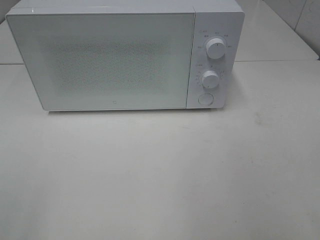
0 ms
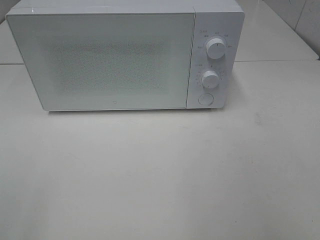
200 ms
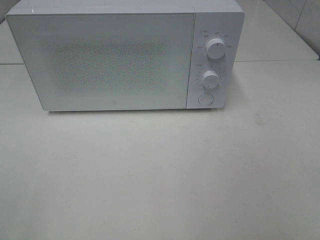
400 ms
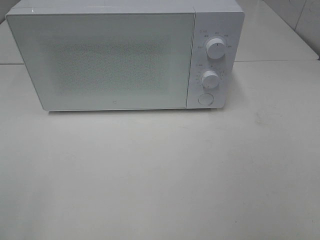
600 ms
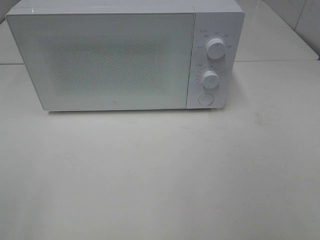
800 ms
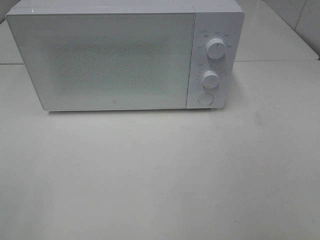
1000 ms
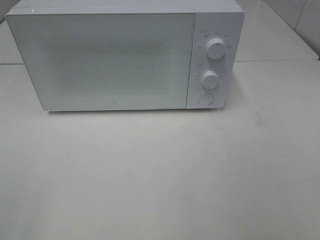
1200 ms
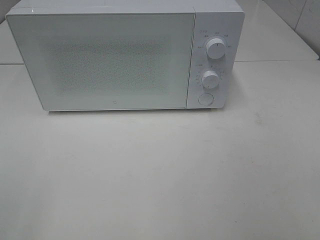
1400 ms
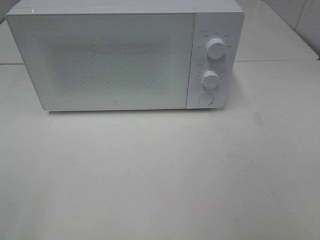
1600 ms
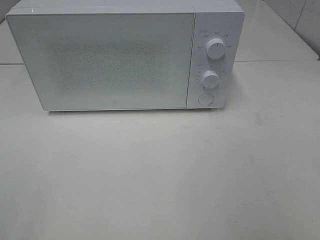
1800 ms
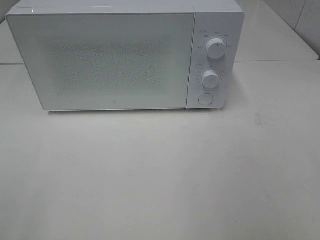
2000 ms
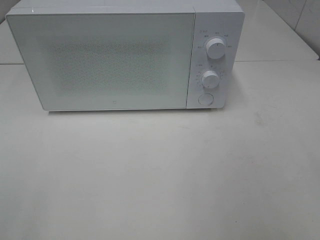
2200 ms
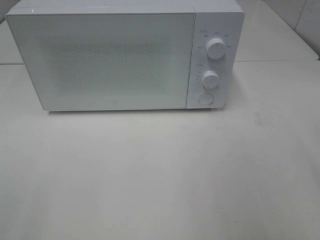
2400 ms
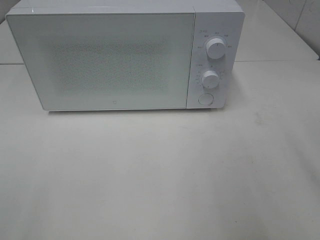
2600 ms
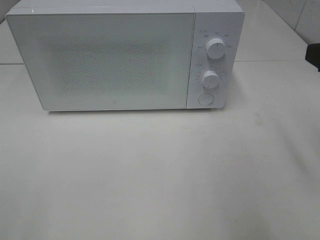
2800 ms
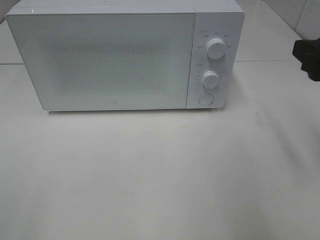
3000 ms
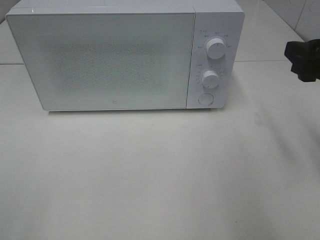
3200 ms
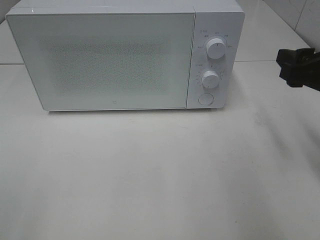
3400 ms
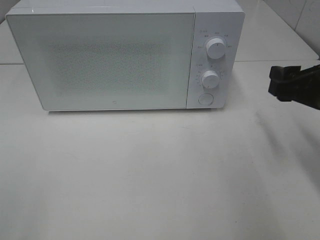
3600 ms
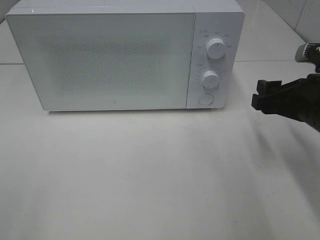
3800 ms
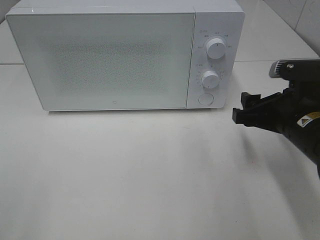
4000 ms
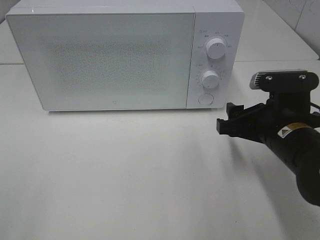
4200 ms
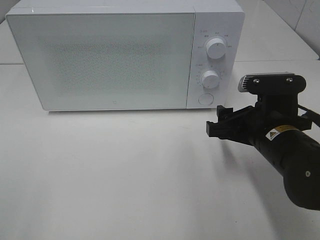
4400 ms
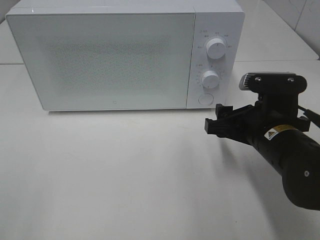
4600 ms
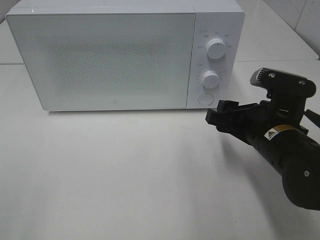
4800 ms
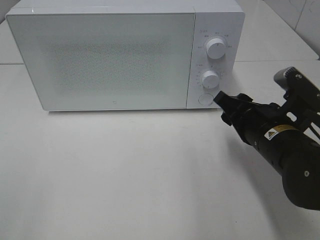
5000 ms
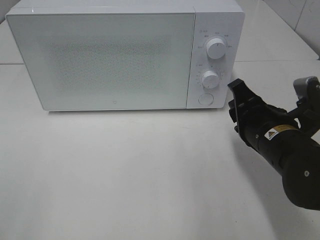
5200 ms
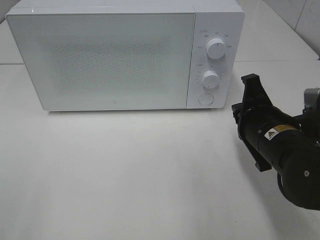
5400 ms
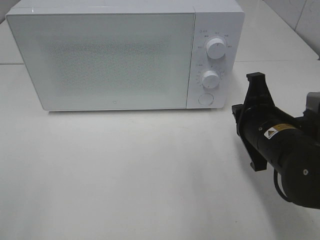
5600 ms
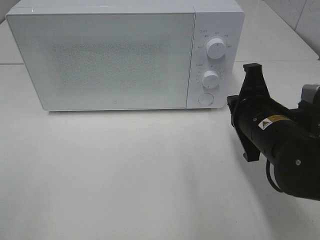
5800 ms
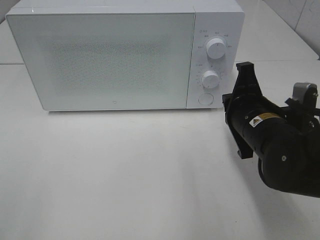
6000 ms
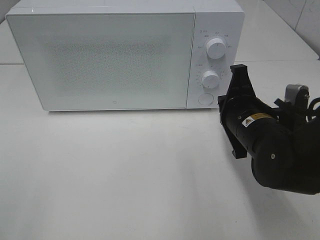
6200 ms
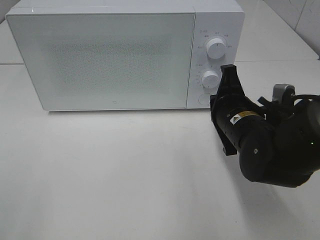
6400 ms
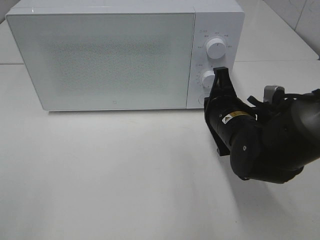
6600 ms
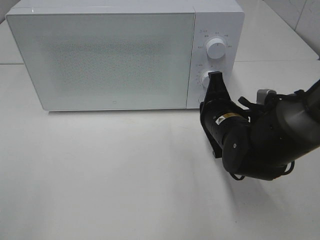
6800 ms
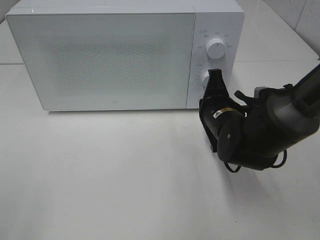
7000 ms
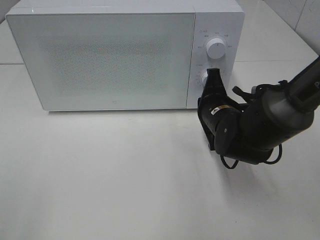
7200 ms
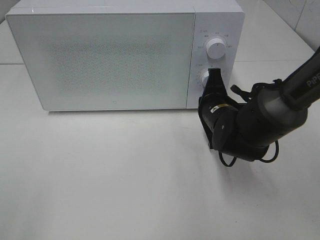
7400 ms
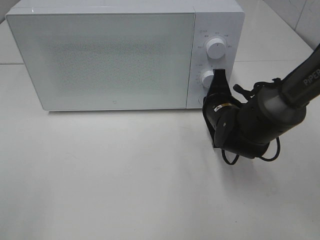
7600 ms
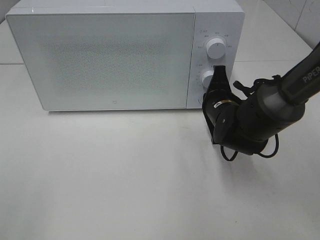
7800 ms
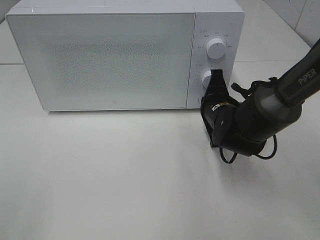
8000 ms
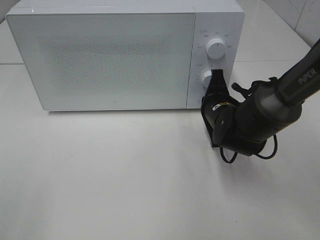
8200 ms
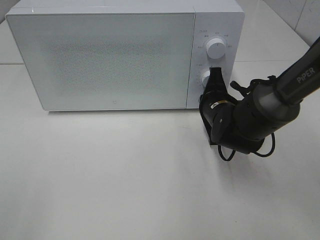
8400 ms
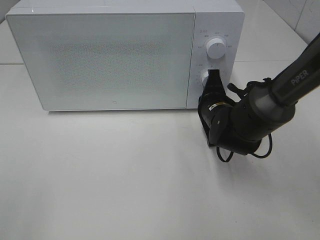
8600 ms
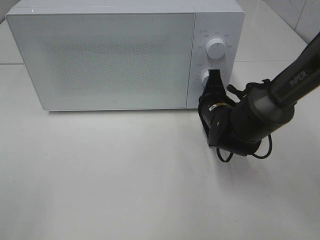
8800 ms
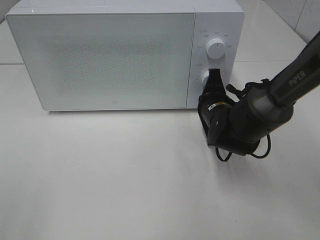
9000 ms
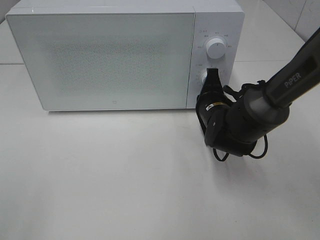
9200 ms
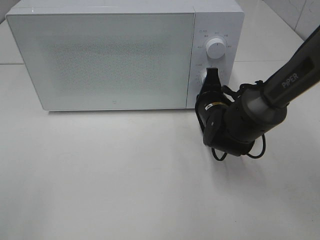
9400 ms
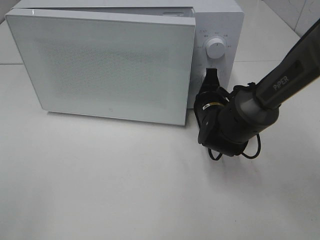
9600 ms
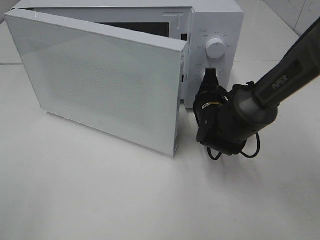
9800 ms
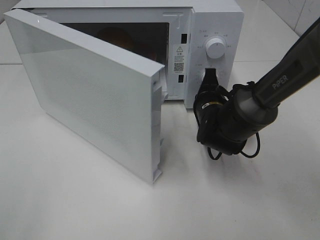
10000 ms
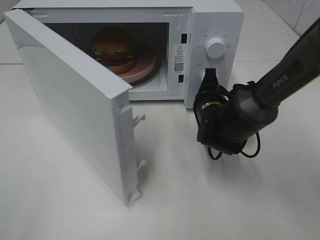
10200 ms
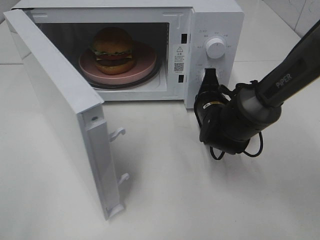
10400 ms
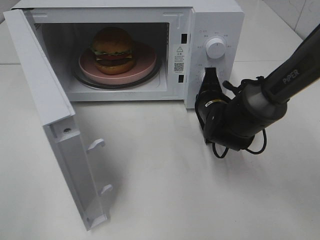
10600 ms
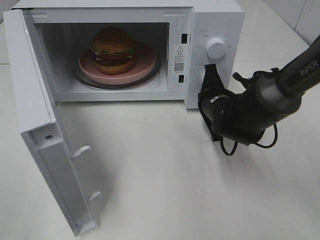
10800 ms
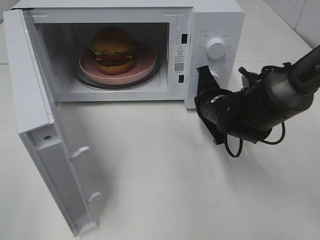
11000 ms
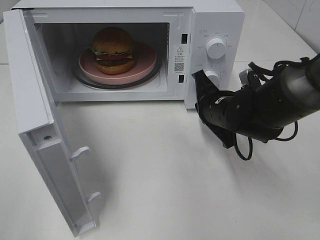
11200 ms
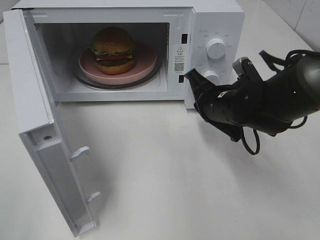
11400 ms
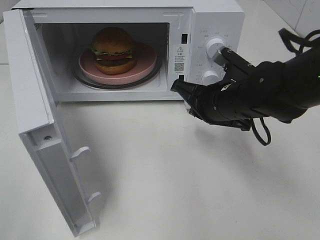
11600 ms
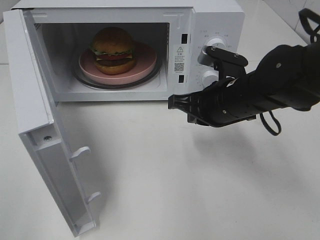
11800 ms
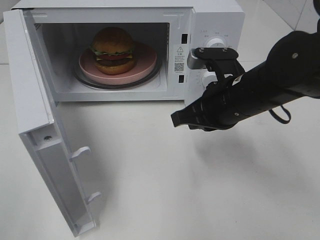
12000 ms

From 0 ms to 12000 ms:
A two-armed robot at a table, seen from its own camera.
Task of the whole recording: Heat the burger.
Step, from 0 ms to 11000 ms: Right hand: press the switch.
From 1600 ms to 3000 ms: The right gripper goes some 20 cm forward.
From 3000 ms to 4400 ms: The right gripper moves downward and to the left, some 15 cm.
From 4400 ms to 6000 ms: The right gripper closes.
From 6000 ms to 7600 ms: The right gripper shifts some 10 cm forward and downward.
From 7600 ms to 9000 ms: The grippers stay close to where they were, moving slightly.
From 10400 ms to 12000 ms: The right gripper goes about 15 cm upward and backward.

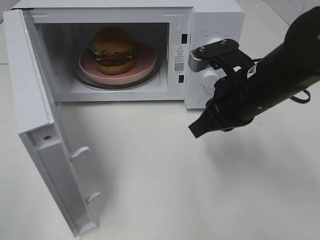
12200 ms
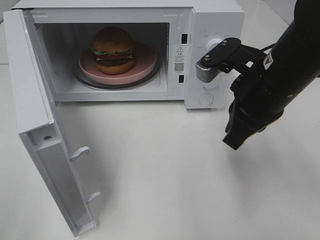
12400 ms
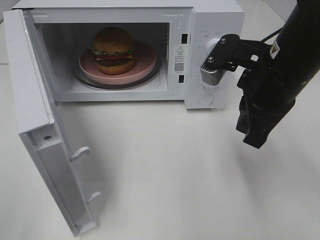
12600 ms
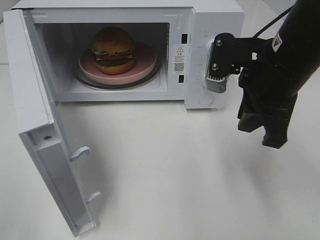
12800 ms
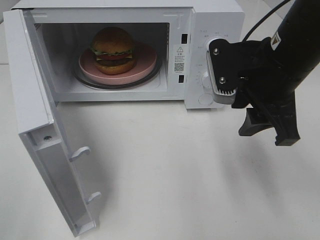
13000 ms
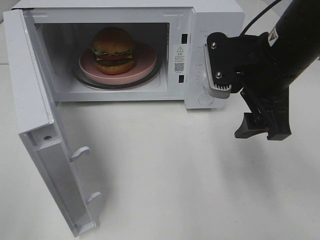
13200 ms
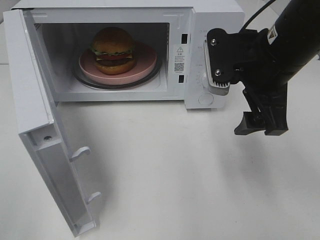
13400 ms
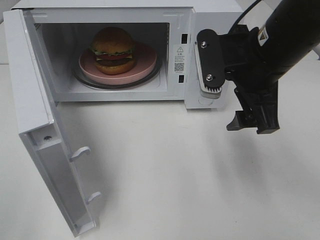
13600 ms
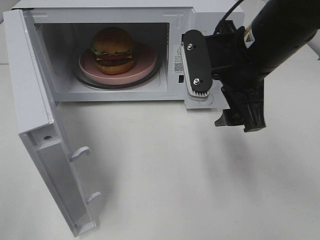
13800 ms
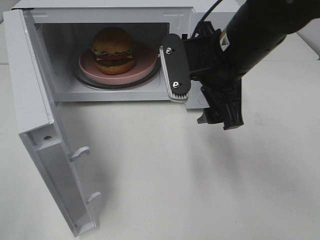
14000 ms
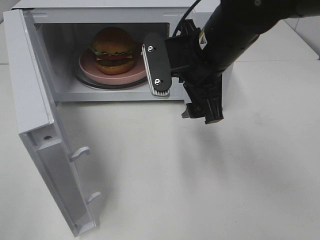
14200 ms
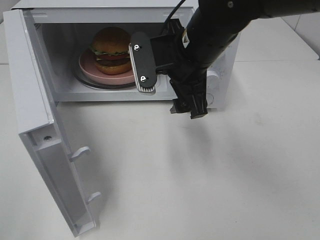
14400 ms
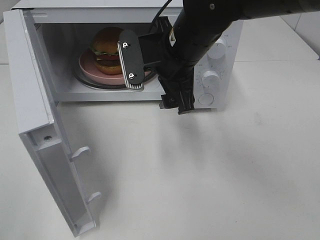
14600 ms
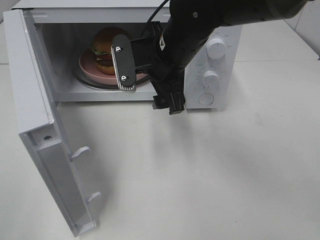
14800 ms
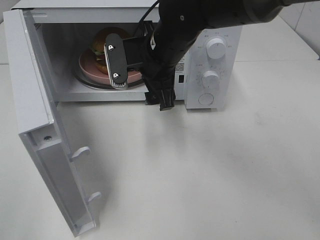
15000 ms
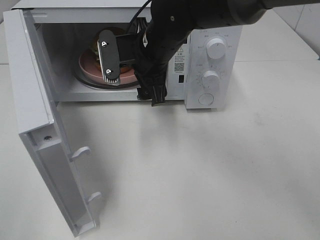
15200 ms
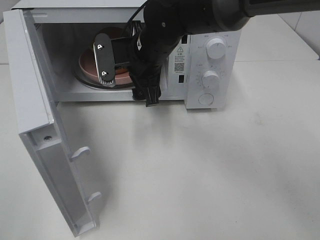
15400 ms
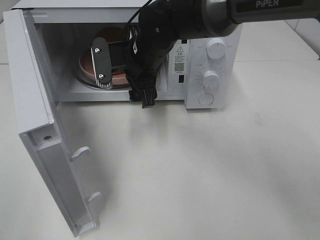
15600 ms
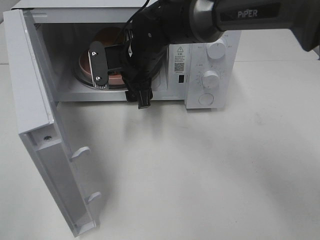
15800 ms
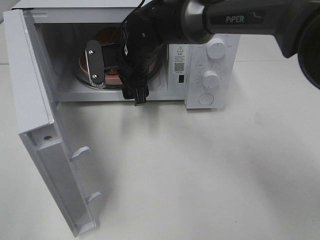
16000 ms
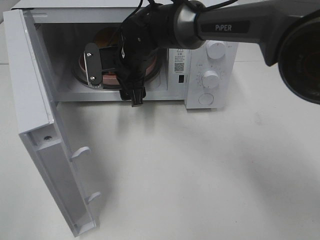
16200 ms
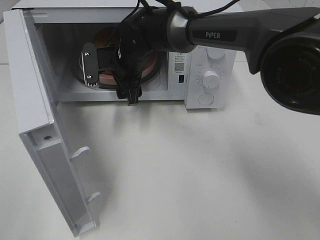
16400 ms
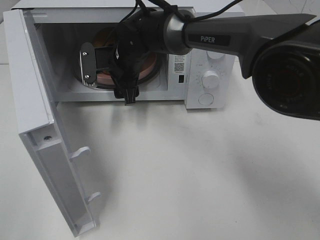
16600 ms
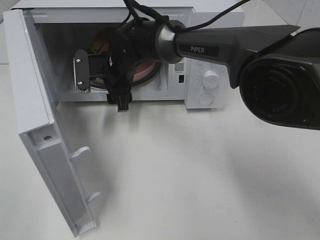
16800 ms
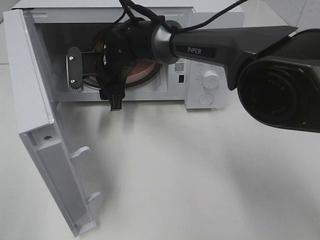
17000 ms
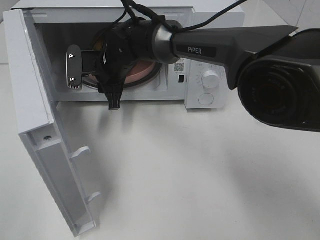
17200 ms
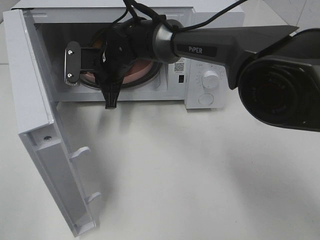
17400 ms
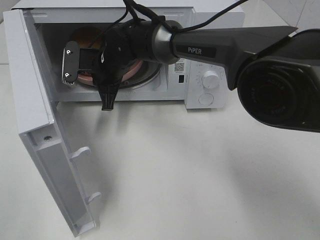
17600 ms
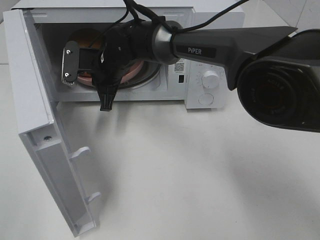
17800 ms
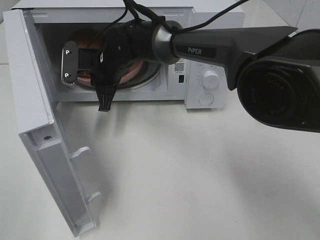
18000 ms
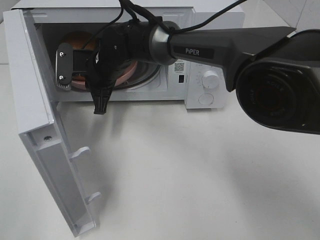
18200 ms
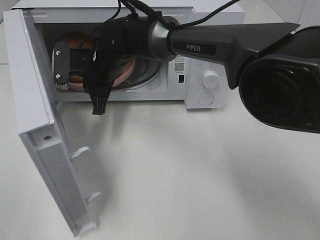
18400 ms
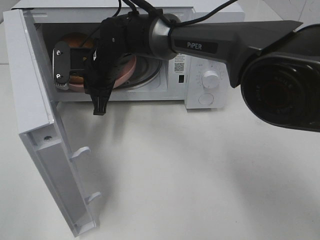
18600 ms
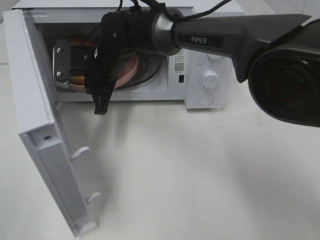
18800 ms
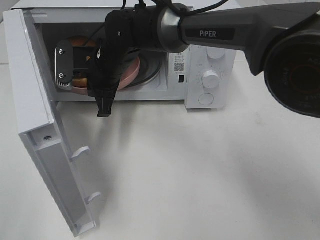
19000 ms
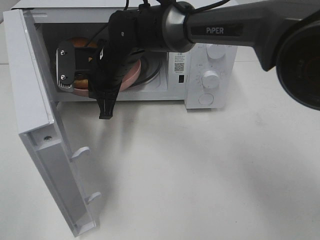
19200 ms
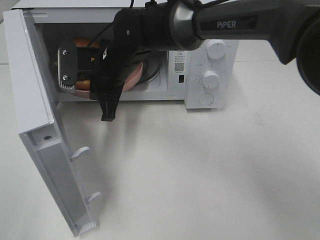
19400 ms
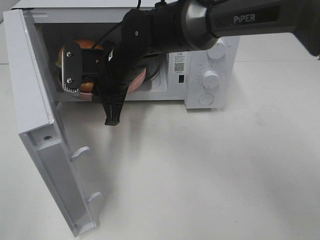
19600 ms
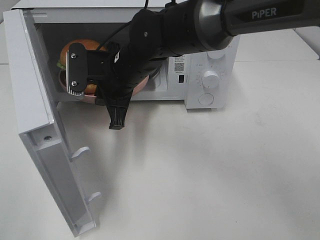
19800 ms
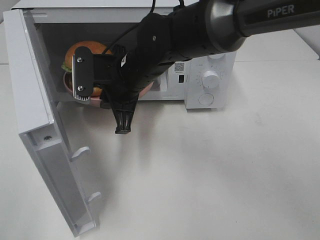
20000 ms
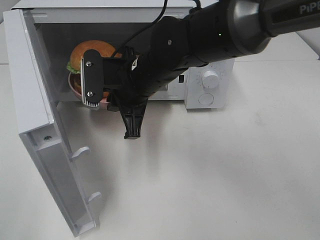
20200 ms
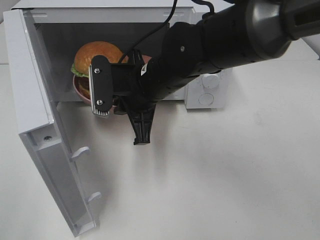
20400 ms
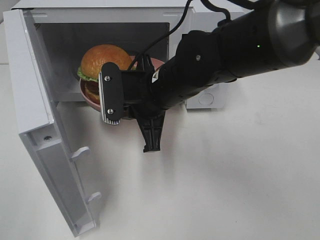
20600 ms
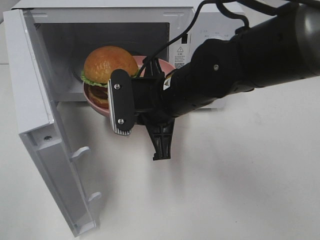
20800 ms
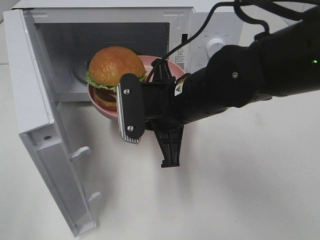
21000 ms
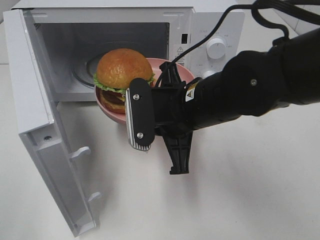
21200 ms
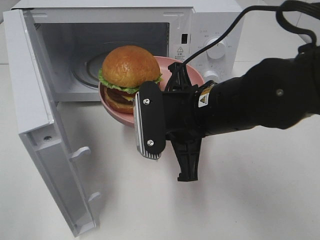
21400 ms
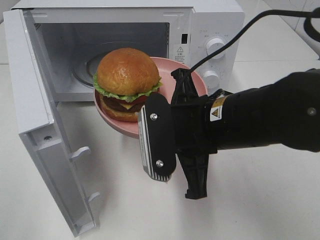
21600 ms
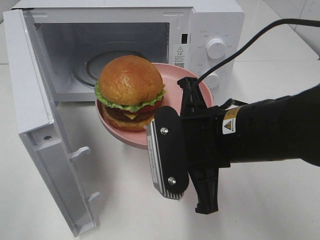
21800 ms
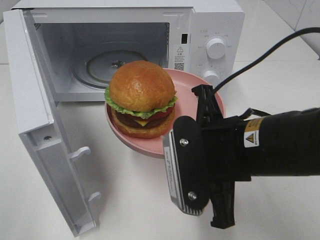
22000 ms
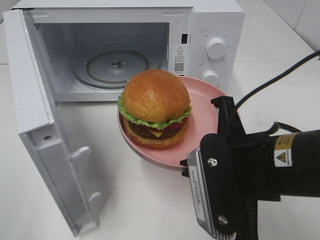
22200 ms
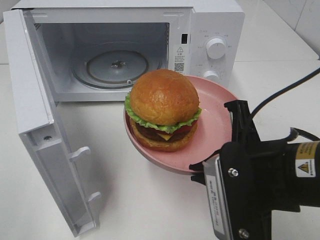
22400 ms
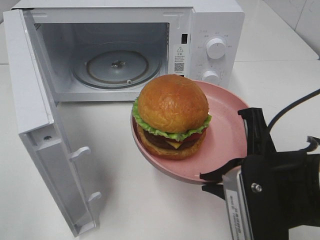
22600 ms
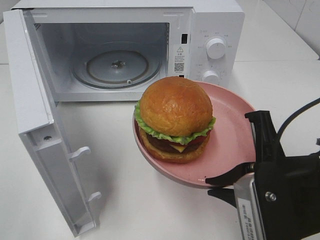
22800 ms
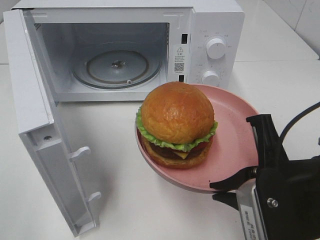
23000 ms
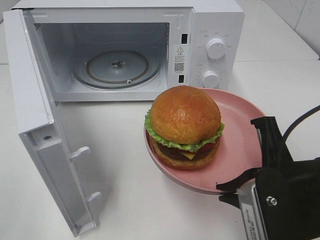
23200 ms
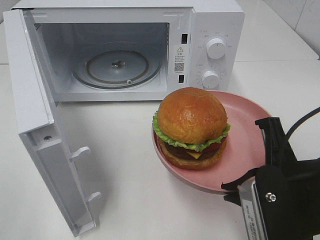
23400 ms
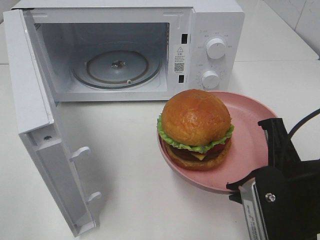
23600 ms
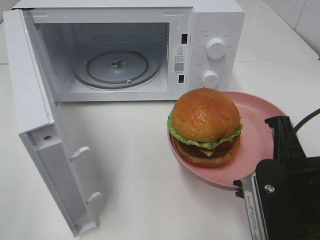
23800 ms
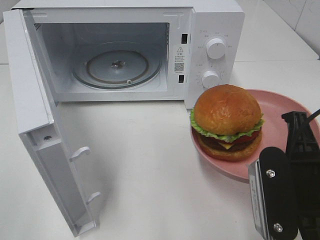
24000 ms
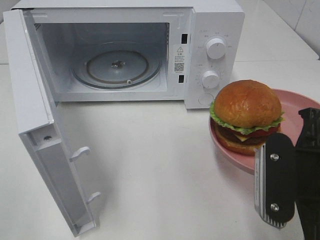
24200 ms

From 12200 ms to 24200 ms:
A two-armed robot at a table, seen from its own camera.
Task of the whole recording: Heat the burger.
Step, from 12200 ms to 17600 ms: Right hand: grab the plate with the hamburger.
From 12200 ms to 13800 ms: The right gripper moves some 5 cm, and opens up.
From 13800 ms to 15200 ms: The right gripper travels to the left and forward by approximately 15 cm.
From 15200 ms to 16600 ms: The right gripper goes approximately 10 cm forward, downward and to the left.
From 16600 ms to 18200 ms: The right gripper closes up.
From 18200 ms to 19800 ms: The right gripper travels backward by some 5 cm.
From 19800 ms to 21200 ms: The right gripper is displaced backward and to the right by roughly 15 cm.
From 21200 ms to 22600 ms: The right gripper goes about 15 cm backward and to the right.
